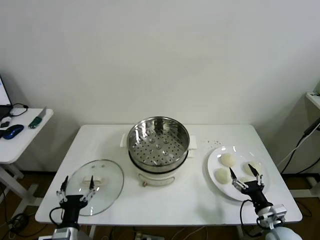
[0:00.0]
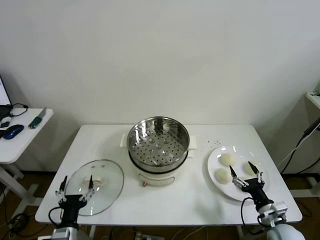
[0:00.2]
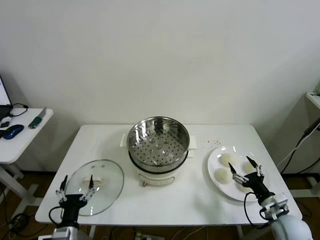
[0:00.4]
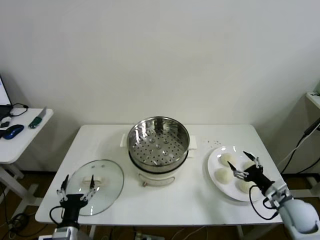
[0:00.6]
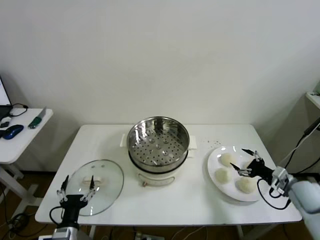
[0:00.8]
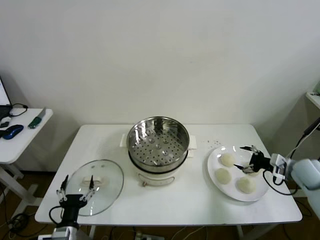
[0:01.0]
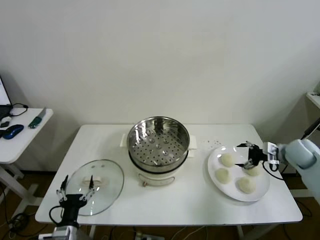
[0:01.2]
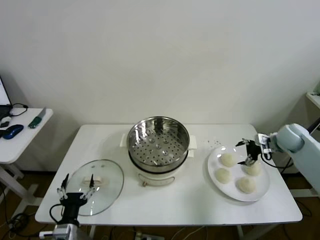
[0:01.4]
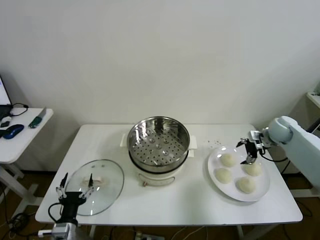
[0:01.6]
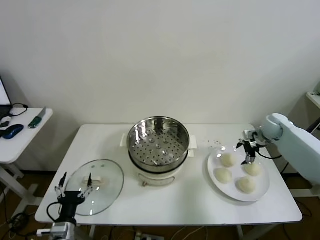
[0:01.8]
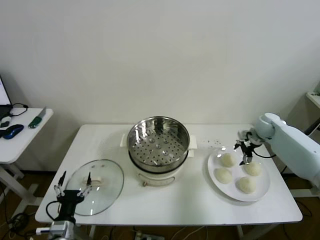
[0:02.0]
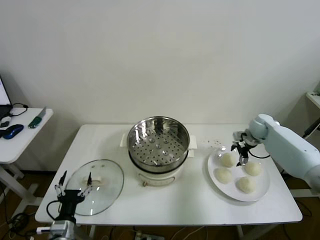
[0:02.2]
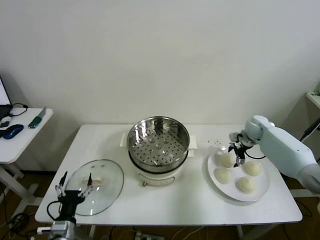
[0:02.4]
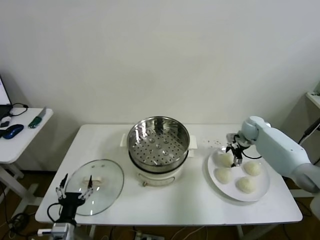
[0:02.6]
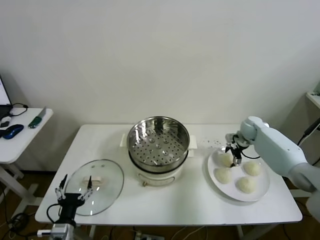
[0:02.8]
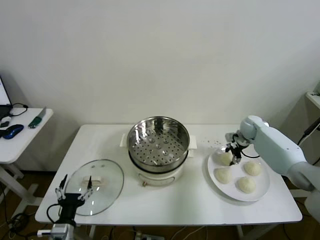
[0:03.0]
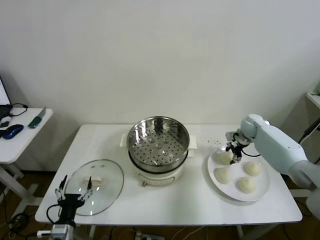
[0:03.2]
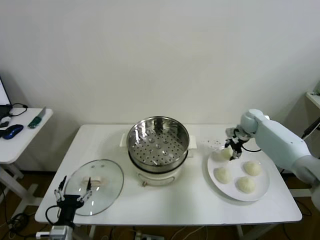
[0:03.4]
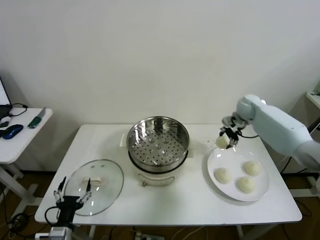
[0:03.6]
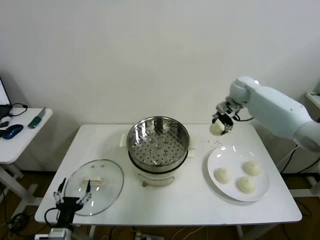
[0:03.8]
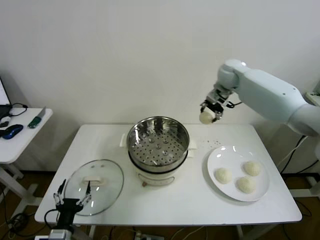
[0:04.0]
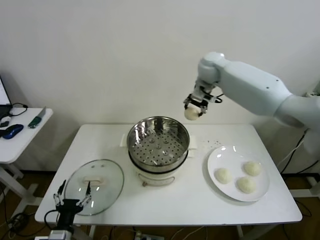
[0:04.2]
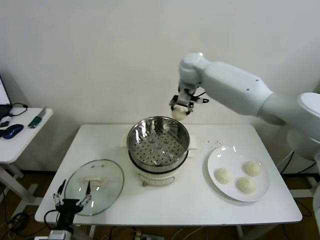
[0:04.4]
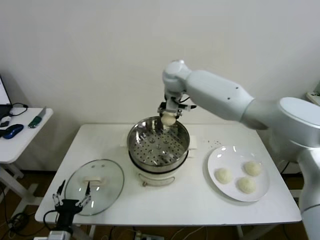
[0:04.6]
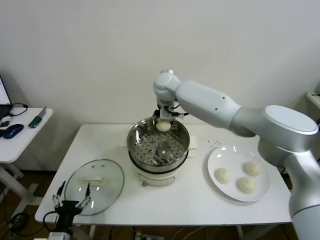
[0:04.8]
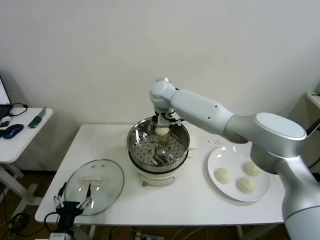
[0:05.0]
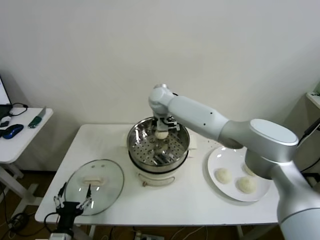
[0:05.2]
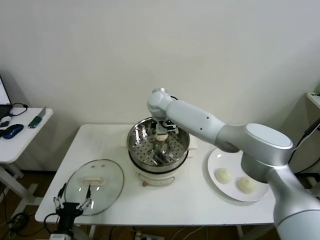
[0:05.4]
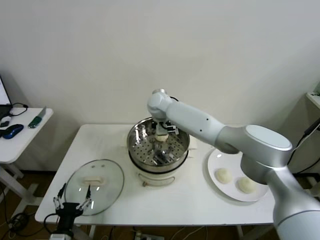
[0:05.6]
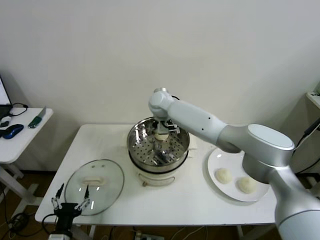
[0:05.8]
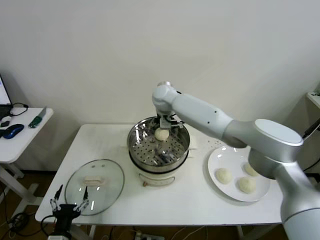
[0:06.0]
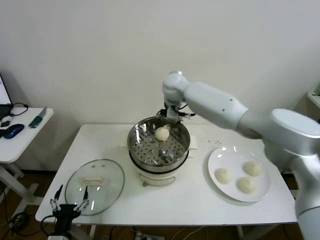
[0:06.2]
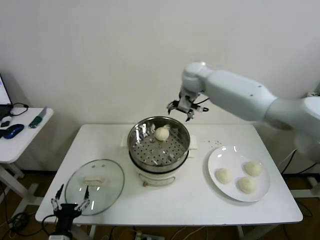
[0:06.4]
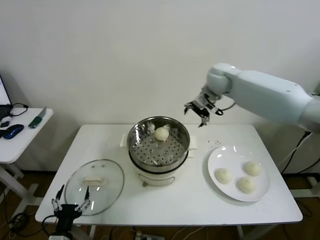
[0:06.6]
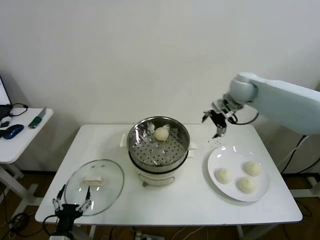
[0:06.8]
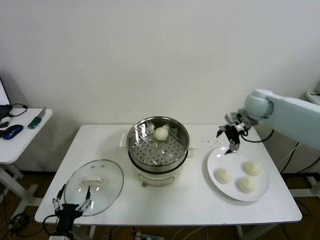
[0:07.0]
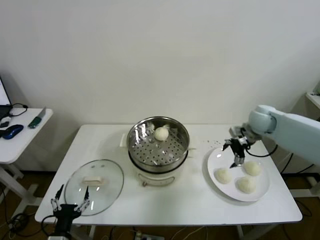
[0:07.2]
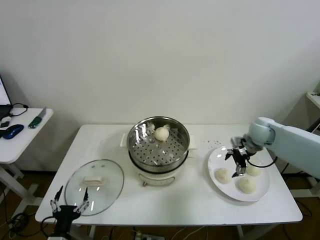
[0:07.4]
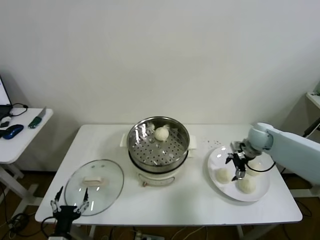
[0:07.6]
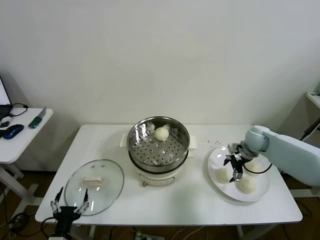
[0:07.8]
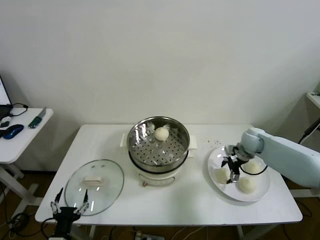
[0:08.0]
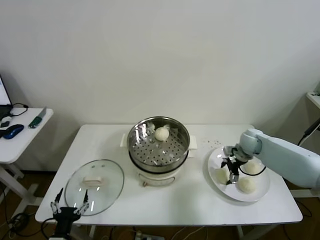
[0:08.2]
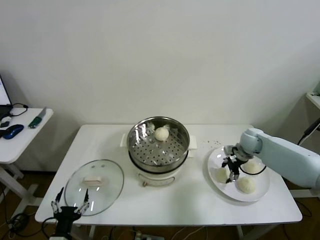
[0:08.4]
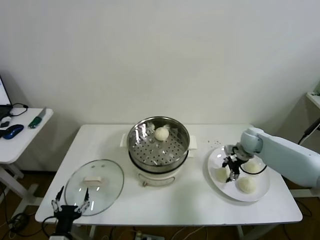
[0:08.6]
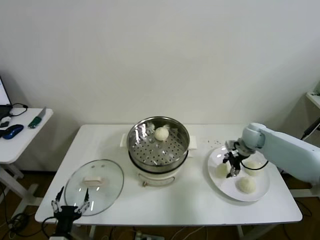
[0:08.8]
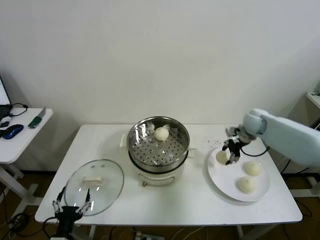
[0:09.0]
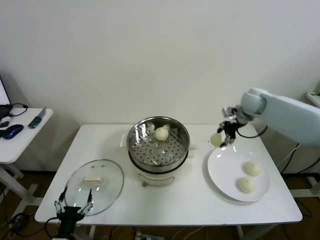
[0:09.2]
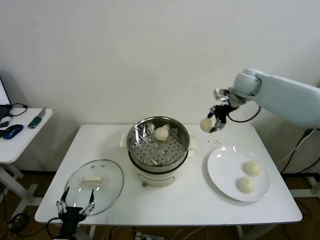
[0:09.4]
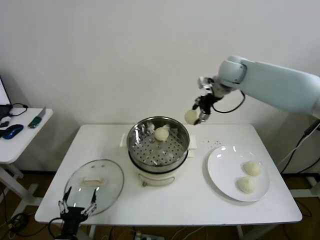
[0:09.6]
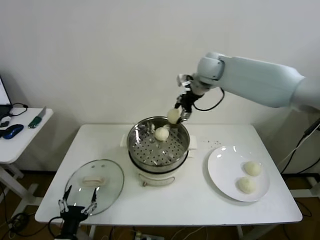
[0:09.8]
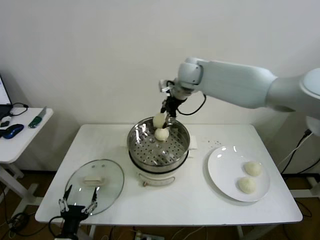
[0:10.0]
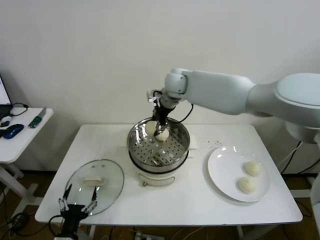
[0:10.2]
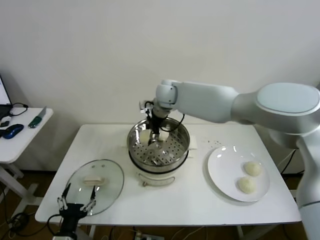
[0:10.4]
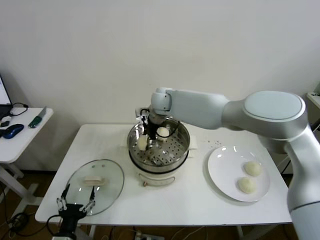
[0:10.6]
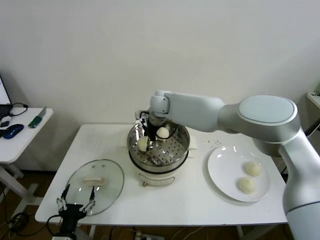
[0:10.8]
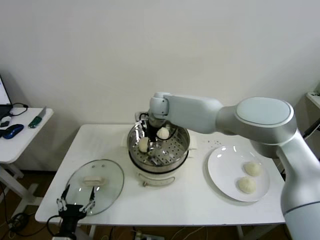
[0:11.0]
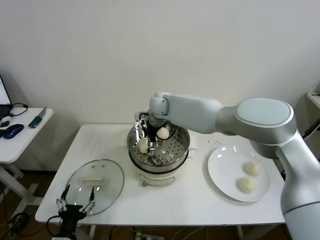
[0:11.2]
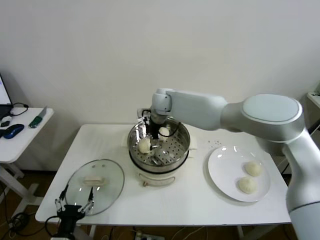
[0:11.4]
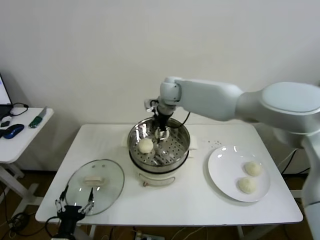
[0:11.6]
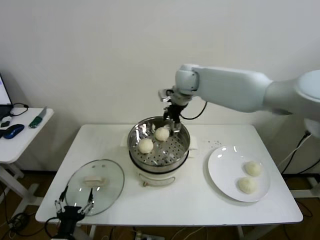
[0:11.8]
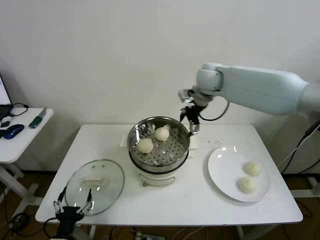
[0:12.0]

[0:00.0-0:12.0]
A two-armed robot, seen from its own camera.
Step, 0:00.0 to 0:02.8: Grasp the baozi in the plate with right gripper.
Step, 0:03.0 to 0:05.6: Place the baozi on the steamer with right gripper.
Step, 0:05.8 to 0:08.2: Grasp the baozi in the plate with right gripper.
Step, 0:08.4 to 0:11.0: Place the baozi on the steamer with right gripper.
0:01.6 to 0:03.0: The right gripper goes about 10 cm to the left, forward and downward, and closes.
0:03.0 to 0:04.4: The right gripper travels to the left and upward by approximately 40 cm.
0:04.4 to 0:06.0: The right gripper heads downward, covering some 5 cm, and opens its fingers.
0:06.0 to 0:07.6: The right gripper moves to the right and downward, some 40 cm.
0:07.6 to 0:09.0: The right gripper is displaced upward and forward by some 10 cm, and closes its fingers.
0:09.0 to 0:10.4: The right gripper is displaced to the left by approximately 35 cm.
0:10.4 to 0:12.0: The right gripper heads to the right and upward, covering roughly 20 cm, and opens.

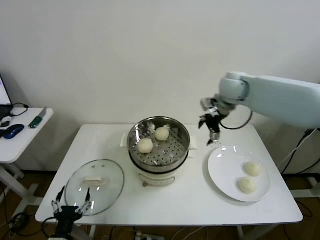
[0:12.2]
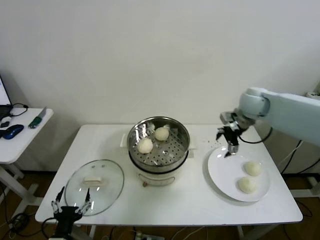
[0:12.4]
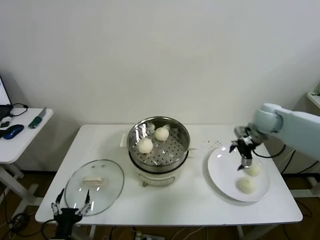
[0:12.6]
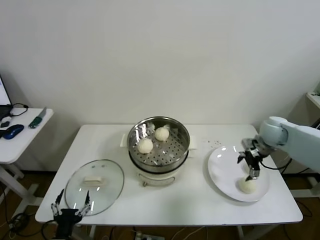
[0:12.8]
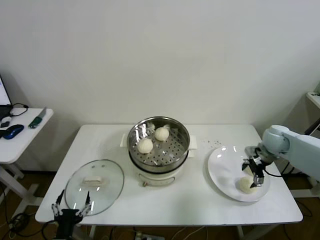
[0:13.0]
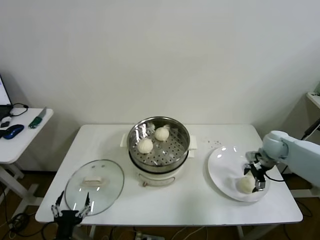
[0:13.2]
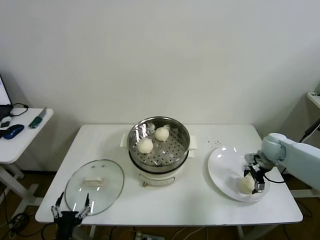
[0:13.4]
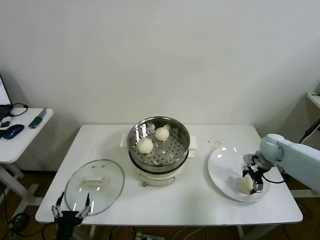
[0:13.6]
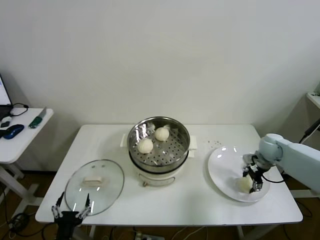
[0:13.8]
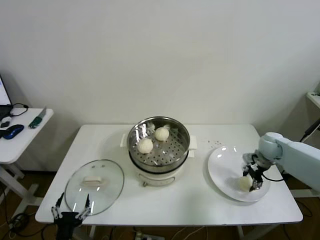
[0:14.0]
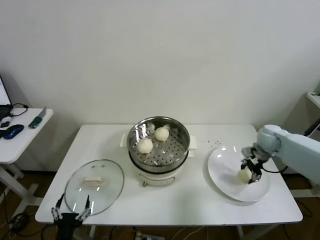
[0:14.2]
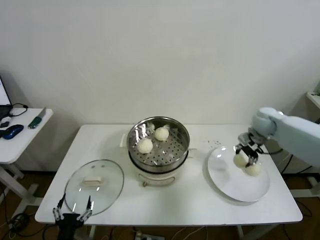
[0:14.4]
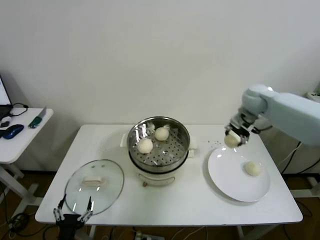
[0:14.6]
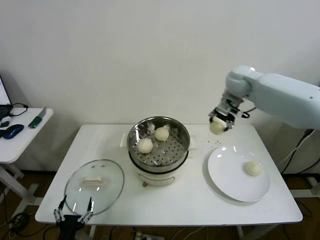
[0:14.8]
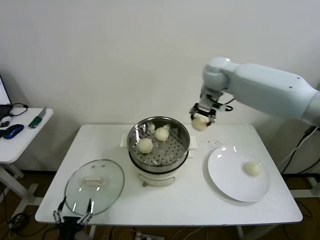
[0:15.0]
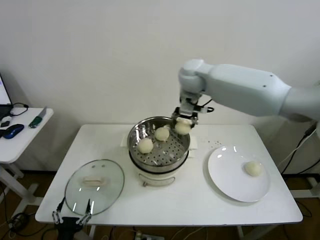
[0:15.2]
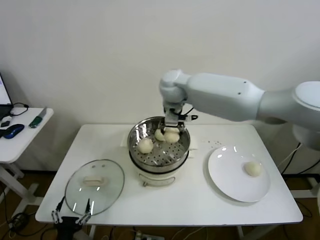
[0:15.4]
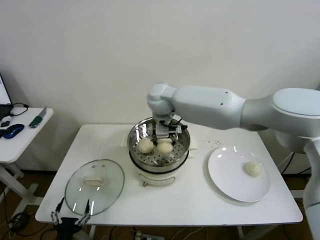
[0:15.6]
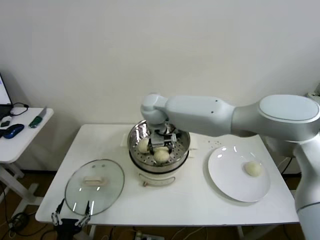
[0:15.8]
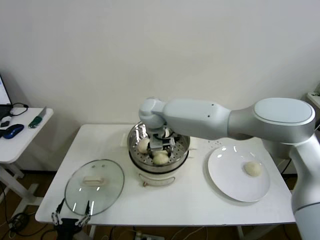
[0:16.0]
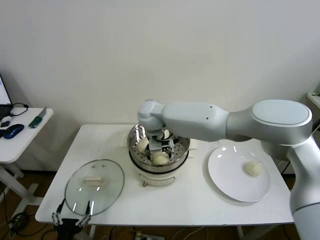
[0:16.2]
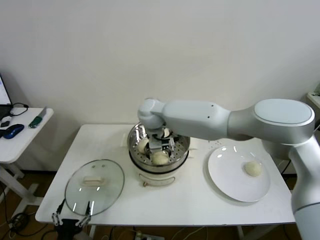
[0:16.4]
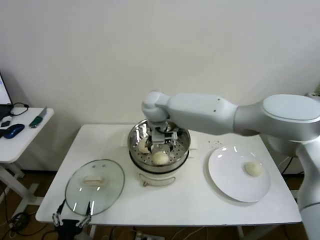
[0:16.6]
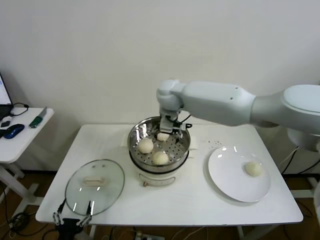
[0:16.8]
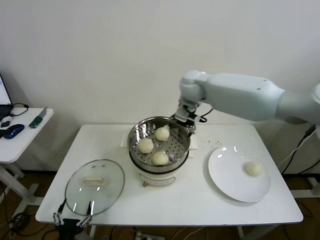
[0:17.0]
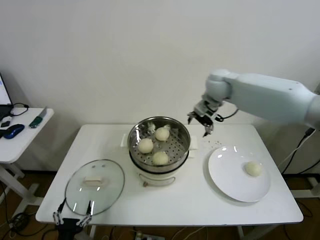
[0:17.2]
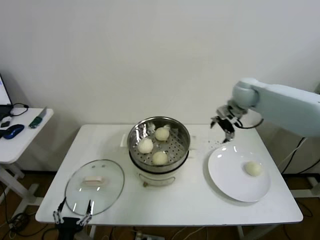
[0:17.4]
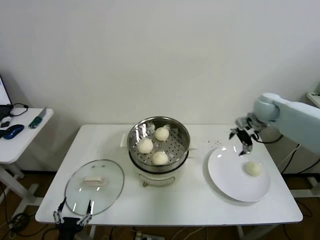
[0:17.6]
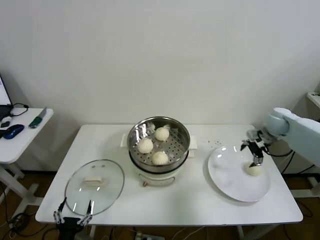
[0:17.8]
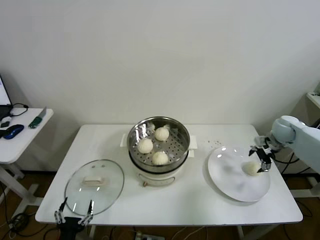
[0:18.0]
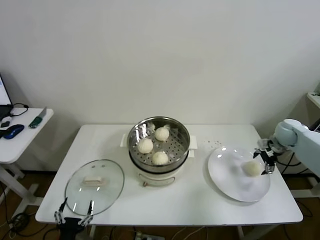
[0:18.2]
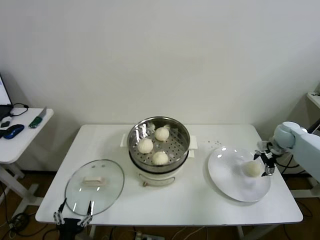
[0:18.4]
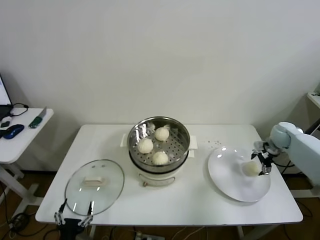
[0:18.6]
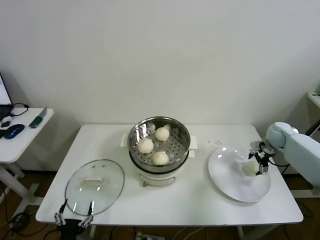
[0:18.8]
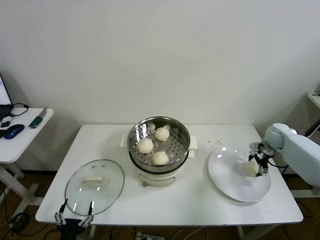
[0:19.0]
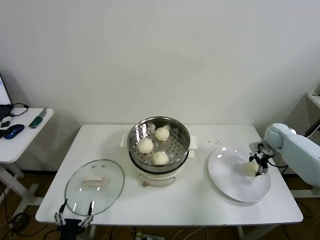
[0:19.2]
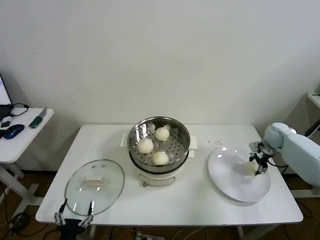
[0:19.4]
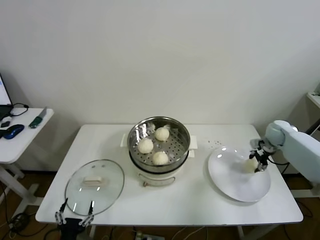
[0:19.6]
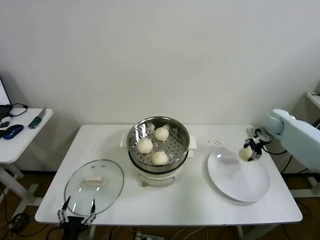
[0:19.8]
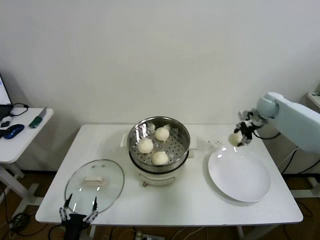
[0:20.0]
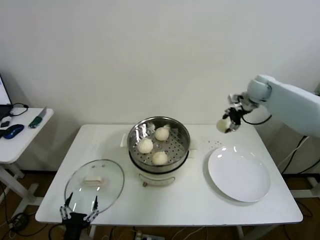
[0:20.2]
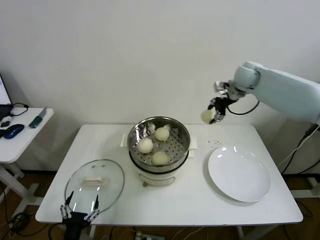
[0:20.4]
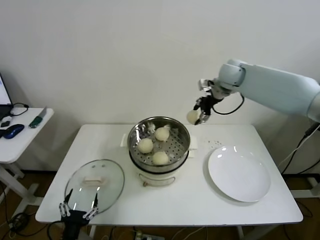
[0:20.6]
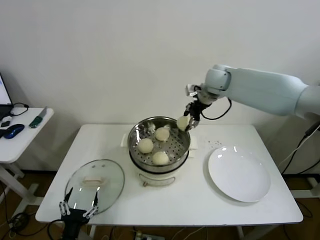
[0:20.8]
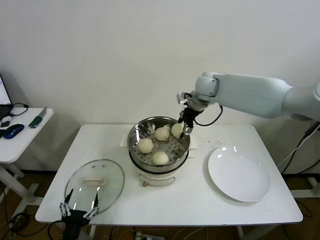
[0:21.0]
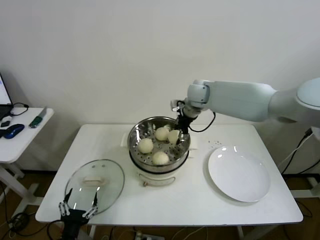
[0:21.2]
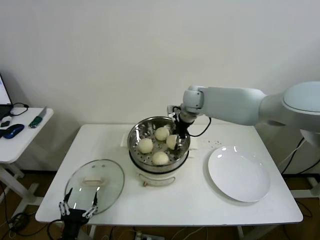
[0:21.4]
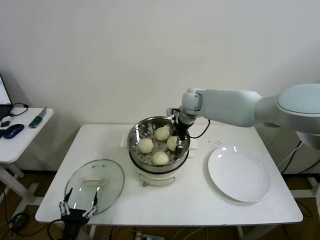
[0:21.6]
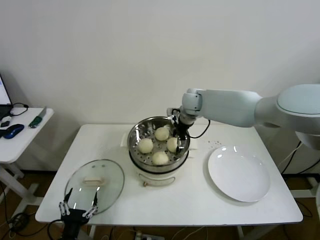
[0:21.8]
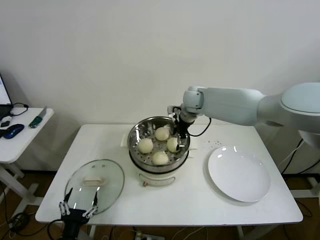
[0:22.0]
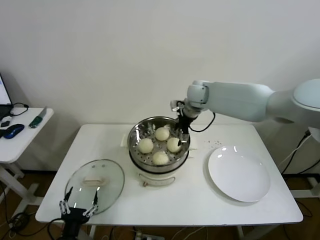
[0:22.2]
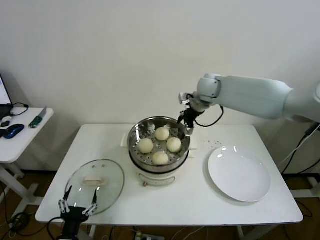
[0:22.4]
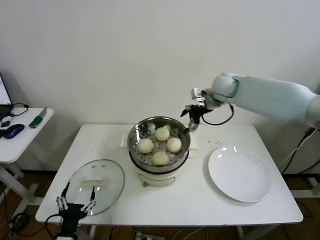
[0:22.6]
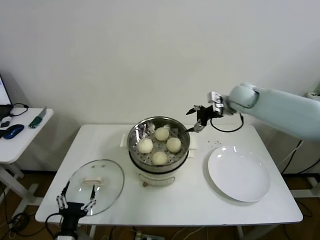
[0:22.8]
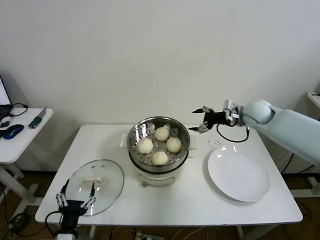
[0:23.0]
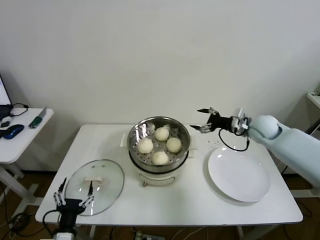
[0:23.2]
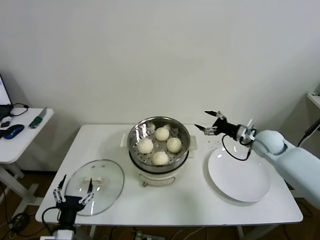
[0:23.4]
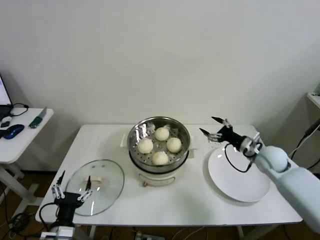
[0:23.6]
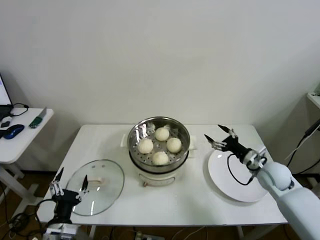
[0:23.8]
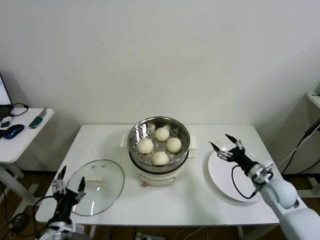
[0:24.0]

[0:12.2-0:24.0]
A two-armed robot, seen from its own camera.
Step, 0:12.2 to 0:13.6: Grasp the baozi in the plate with right gripper.
Step, 0:13.8 to 0:16.0: Place the baozi on the steamer with right gripper.
Step, 0:16.4 to 0:19.0: Grasp the baozi in the plate with right gripper.
Step, 0:19.2 to 0:21.6: Place the baozi on the steamer with right gripper.
0:12.2 to 0:13.6: The right gripper travels downward and to the right by roughly 25 cm.
0:13.6 to 0:15.2: The right gripper heads to the left and upward, covering about 40 cm, and closes.
0:15.2 to 0:16.6: The right gripper is displaced to the left and downward by some 10 cm, and opens its fingers.
0:16.6 to 0:18.2: The right gripper shifts about 50 cm to the right.
0:18.2 to 0:19.6: The right gripper closes.
0:19.6 to 0:21.0: The right gripper is displaced to the left and upward by about 35 cm.
0:21.0 to 0:22.6: The right gripper travels to the right by about 5 cm, and opens up.
0:22.6 to 0:24.0: The right gripper shifts about 40 cm downward, backward and to the right.
